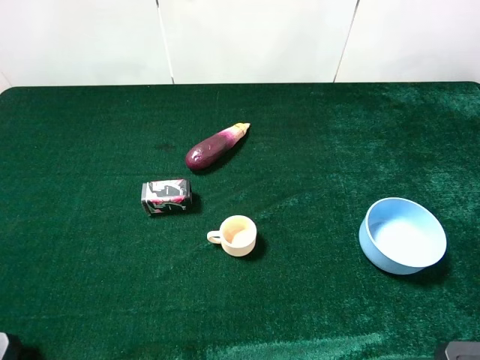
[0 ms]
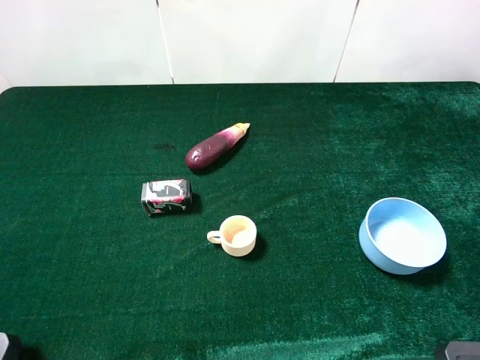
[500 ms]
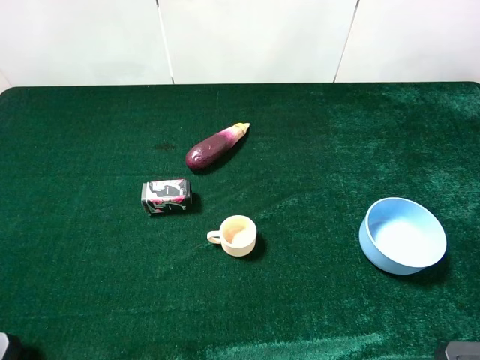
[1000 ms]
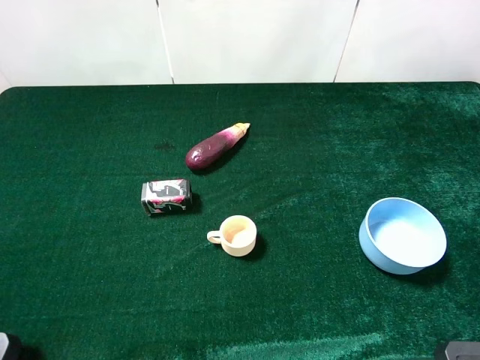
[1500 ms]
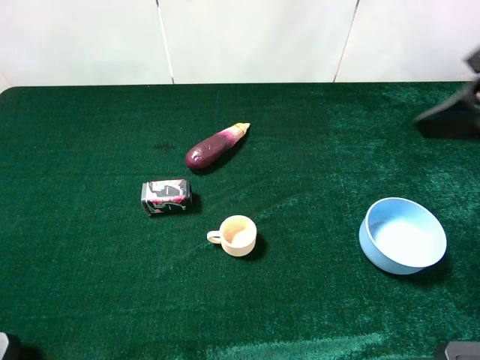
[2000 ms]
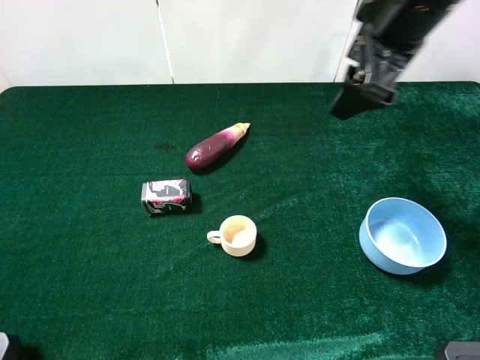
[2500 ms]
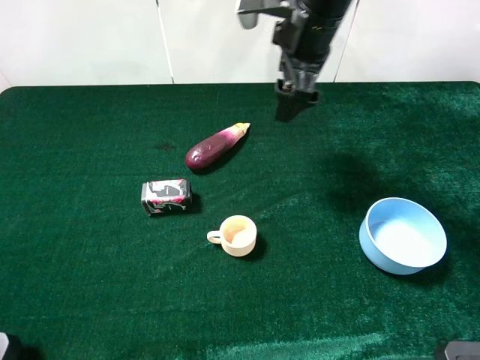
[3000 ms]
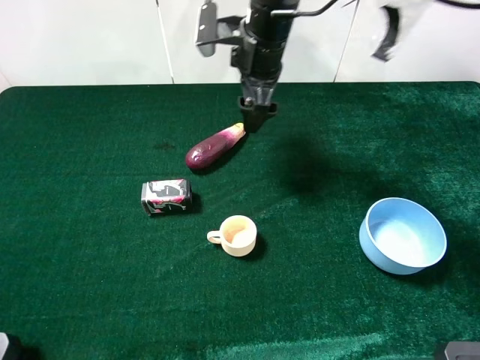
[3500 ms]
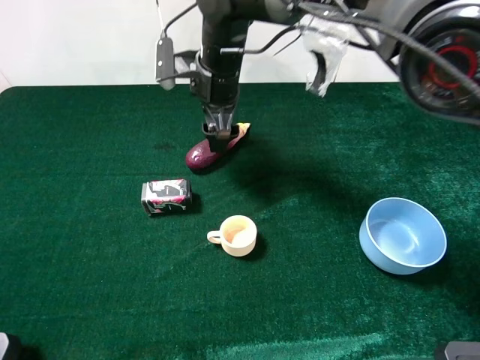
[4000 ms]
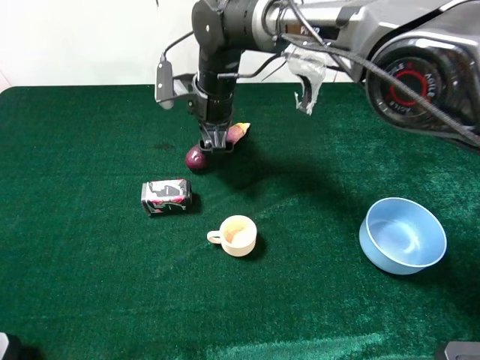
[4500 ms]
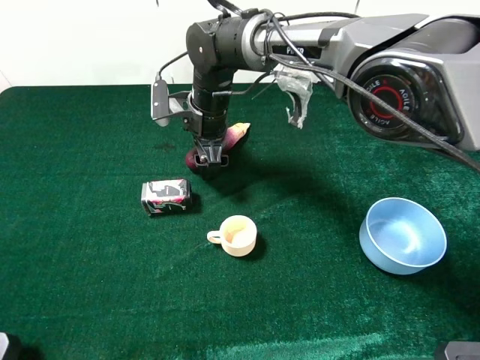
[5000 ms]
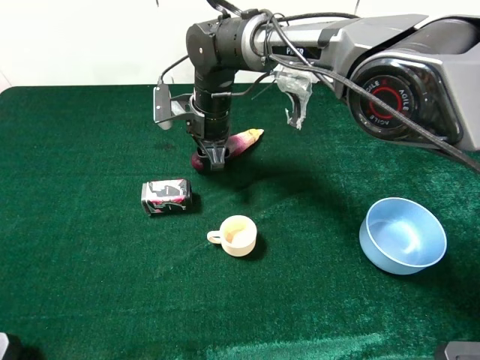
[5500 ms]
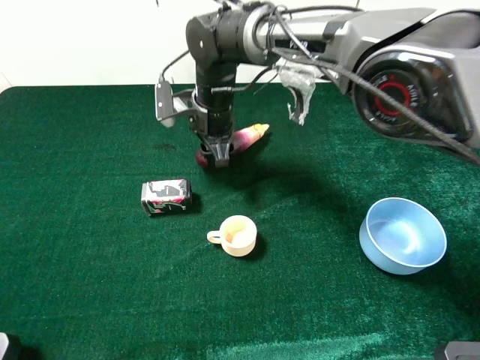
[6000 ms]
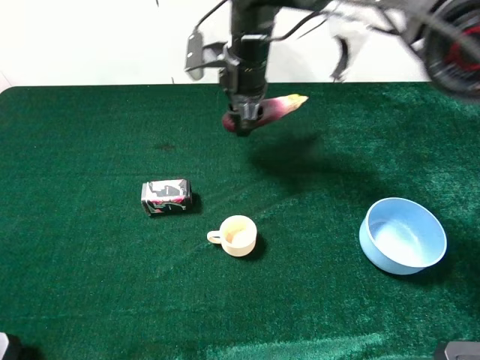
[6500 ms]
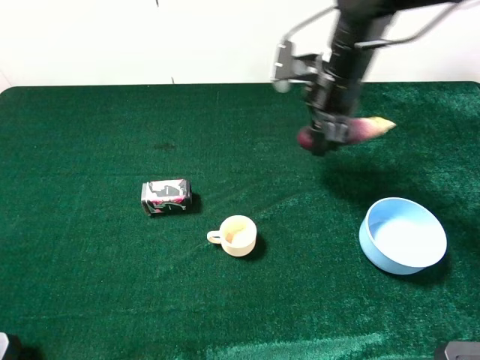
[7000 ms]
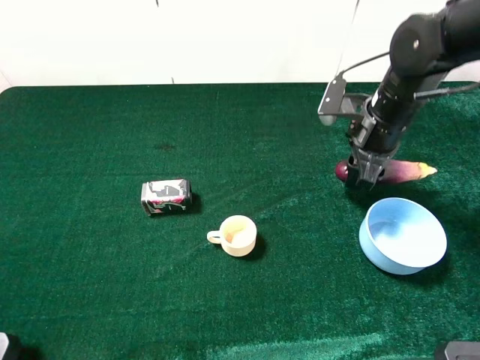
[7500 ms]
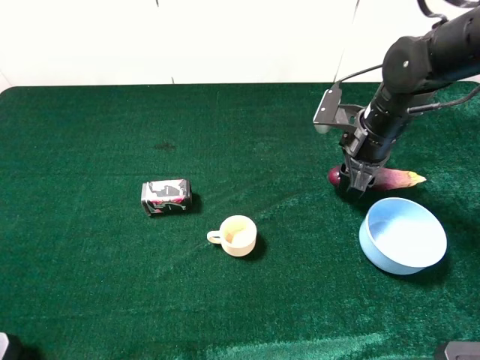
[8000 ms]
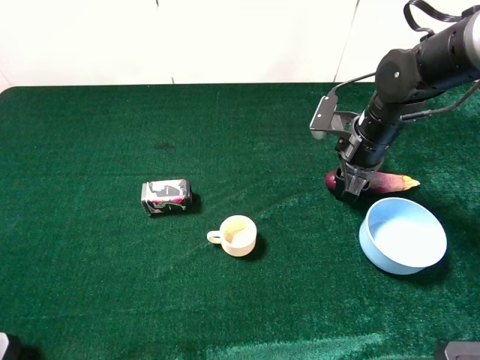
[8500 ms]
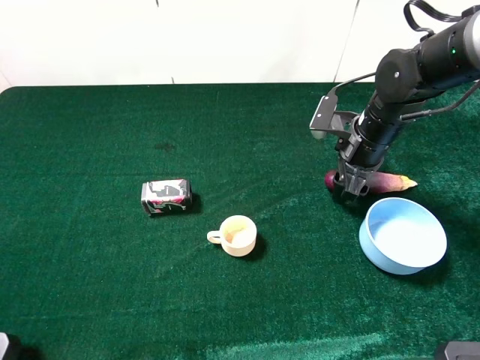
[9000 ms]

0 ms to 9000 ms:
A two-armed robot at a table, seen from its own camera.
Task of the whole recording: the gripper move the object.
Step, 0 ms to 5000 ms: Grasp the eggplant with the right gripper.
0 ms to 2000 ms: The right gripper goes approximately 20 cm forward.
2000 ms to 4500 ms: The right gripper goes about 40 cm to the left, downward and forward.
4500 ms to 7000 ms: The right gripper is displaced to the right by roughly 20 cm, and closes.
7000 ms to 9000 ms: The right gripper travels downward and to the right by approximately 10 cm, and opens.

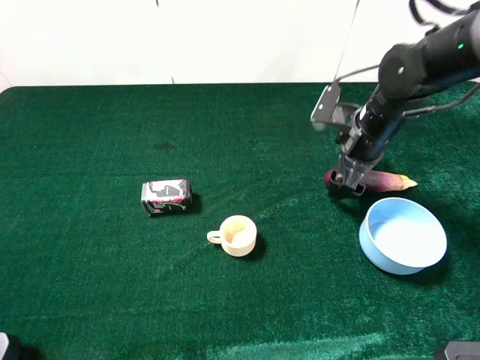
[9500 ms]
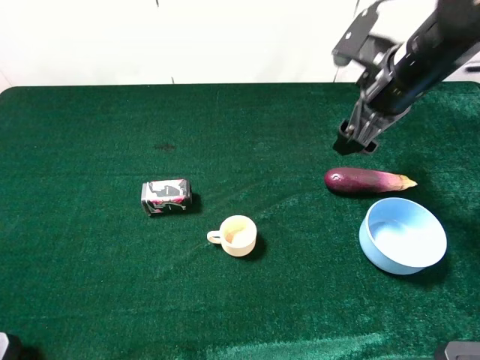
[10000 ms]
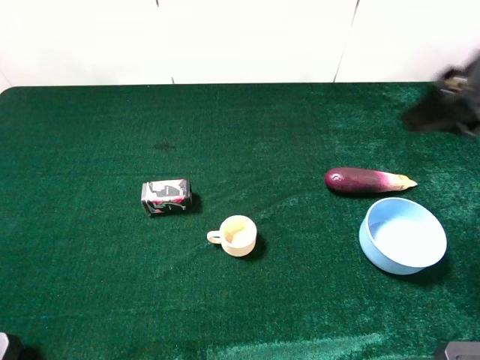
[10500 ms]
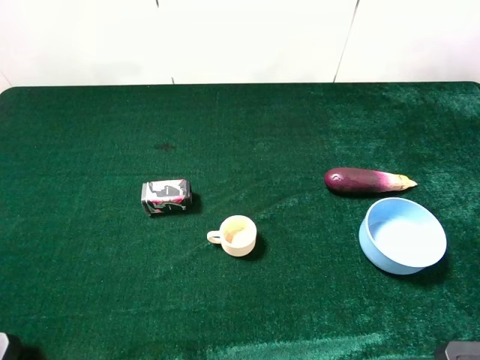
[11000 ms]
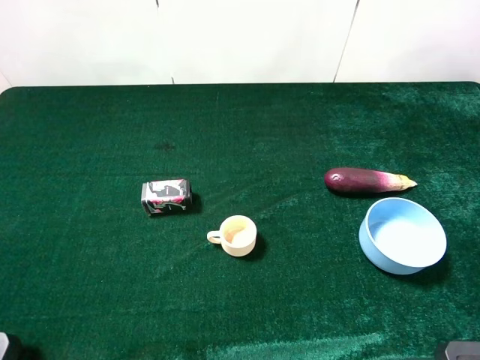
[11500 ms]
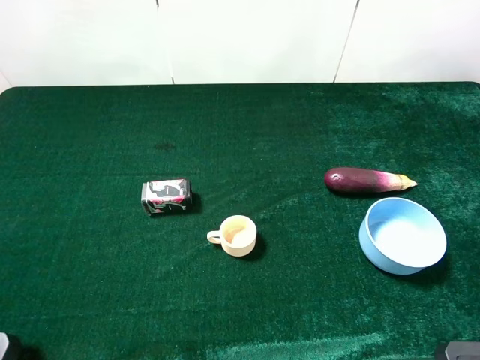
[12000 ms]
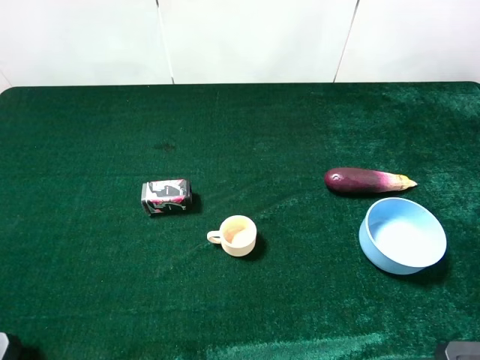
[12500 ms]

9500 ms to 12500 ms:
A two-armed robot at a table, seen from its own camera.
Task of the whole recording: the gripper move the object.
9500 ms to 11000 ms: The right gripper heads backward and upward, covering about 35 cm.
